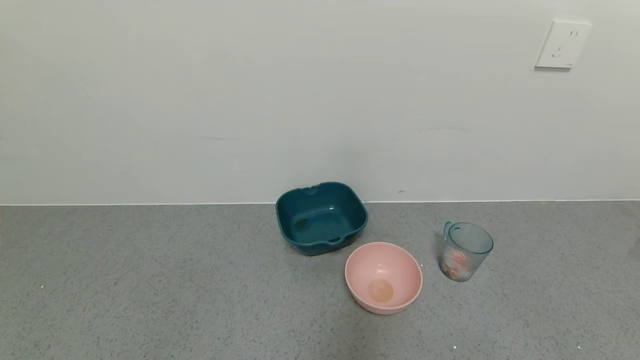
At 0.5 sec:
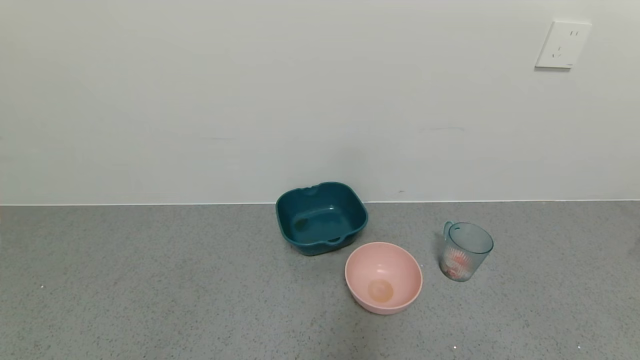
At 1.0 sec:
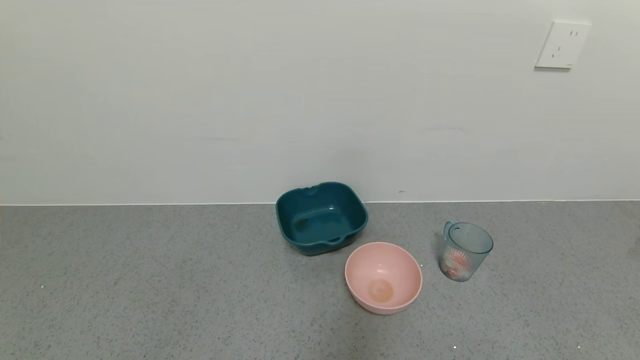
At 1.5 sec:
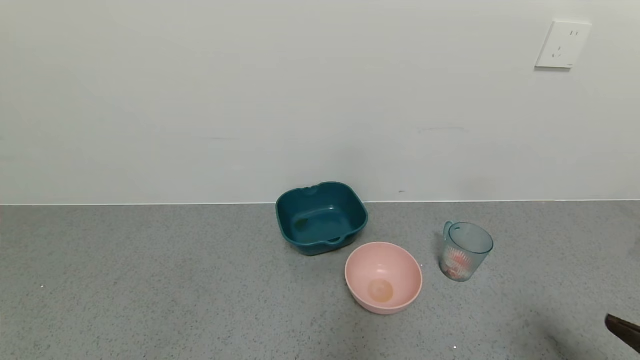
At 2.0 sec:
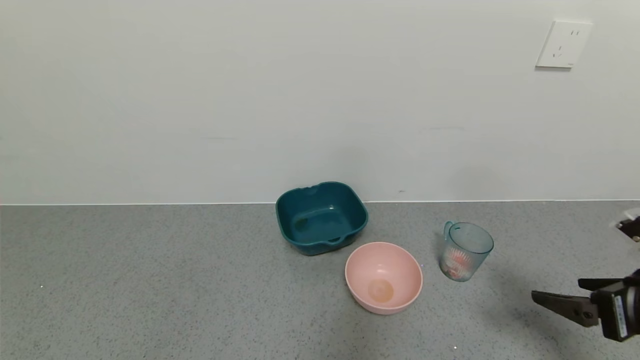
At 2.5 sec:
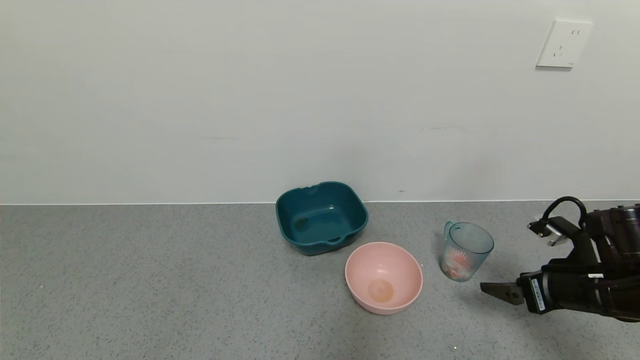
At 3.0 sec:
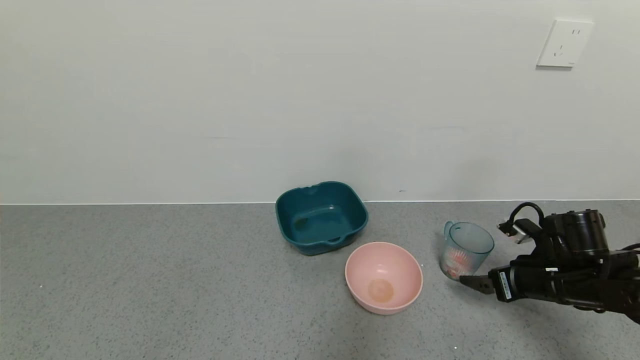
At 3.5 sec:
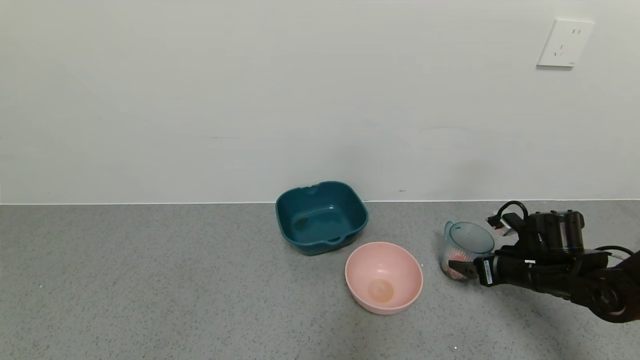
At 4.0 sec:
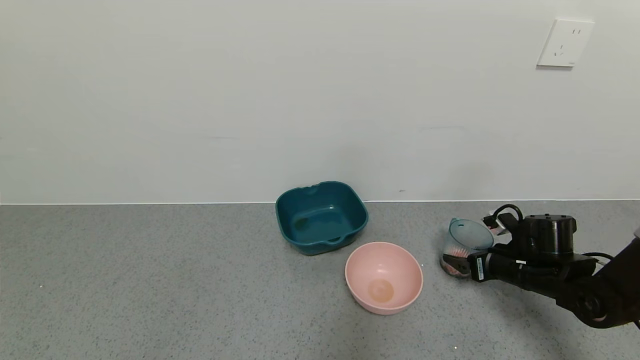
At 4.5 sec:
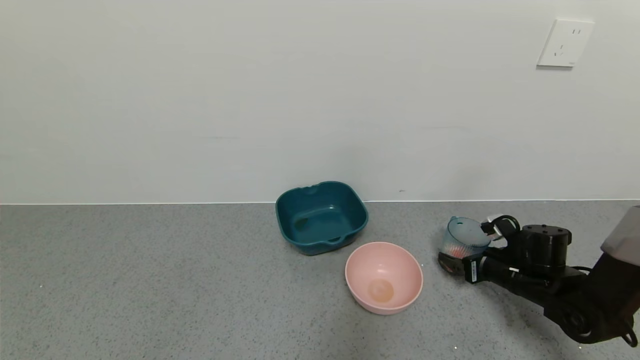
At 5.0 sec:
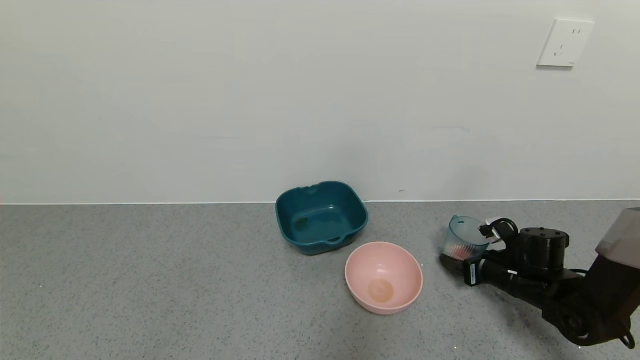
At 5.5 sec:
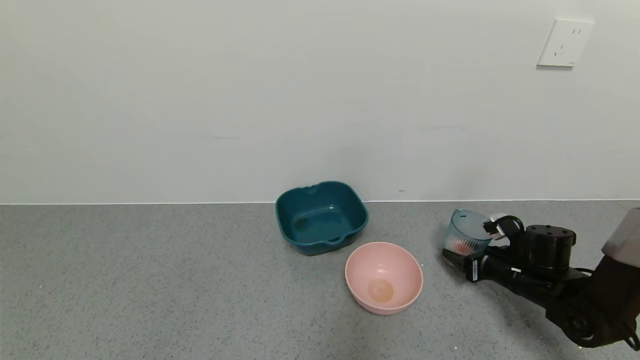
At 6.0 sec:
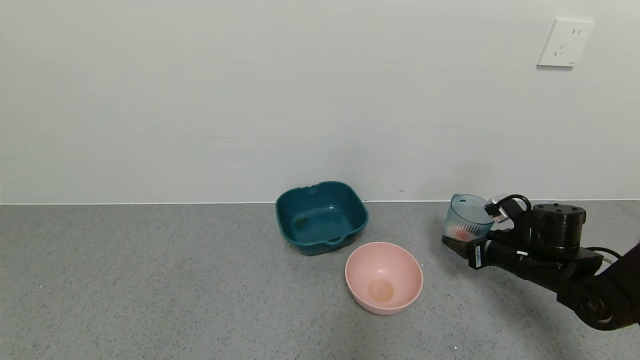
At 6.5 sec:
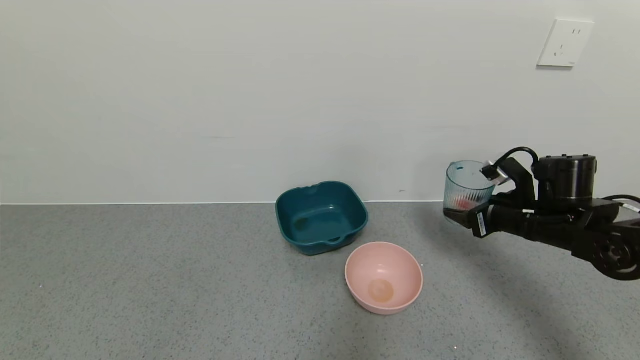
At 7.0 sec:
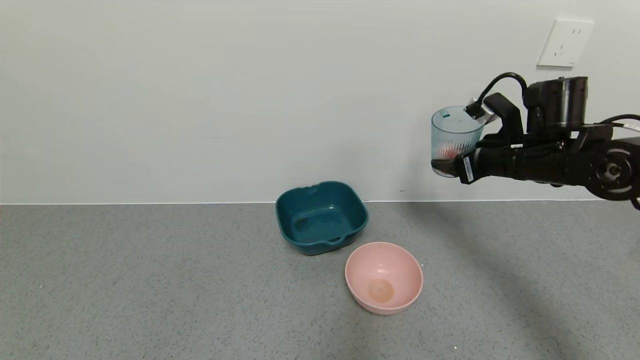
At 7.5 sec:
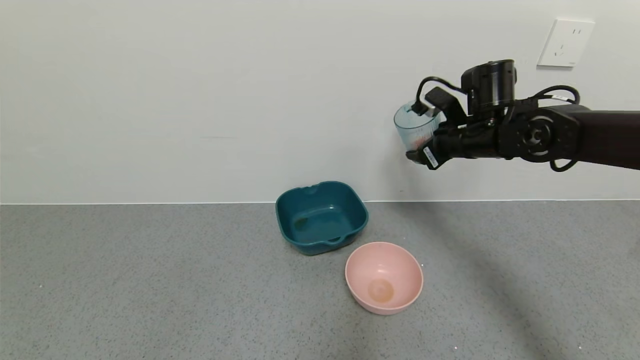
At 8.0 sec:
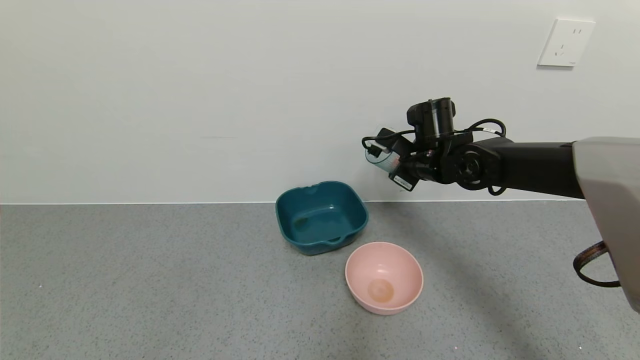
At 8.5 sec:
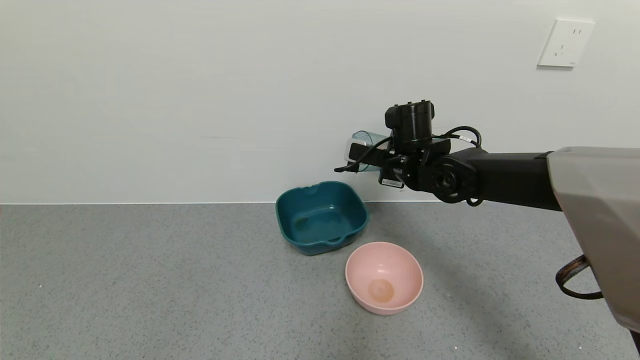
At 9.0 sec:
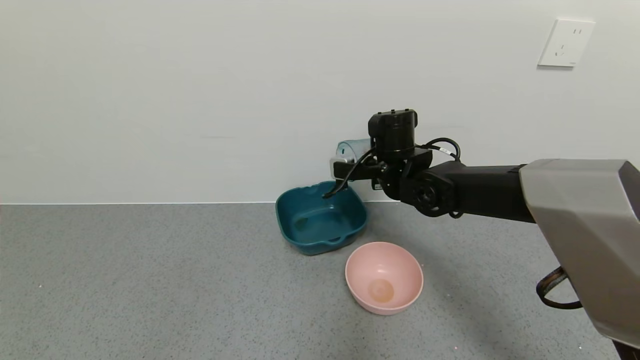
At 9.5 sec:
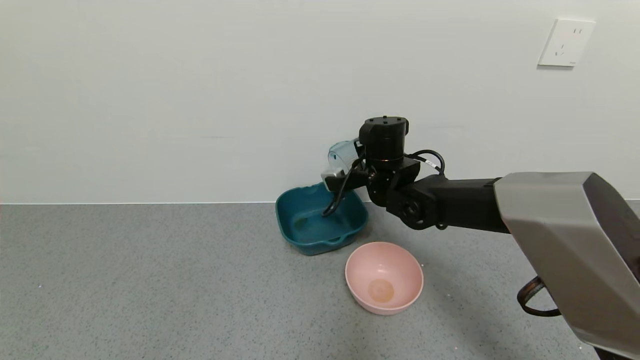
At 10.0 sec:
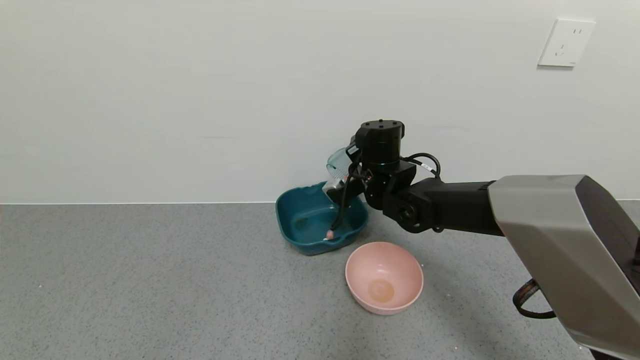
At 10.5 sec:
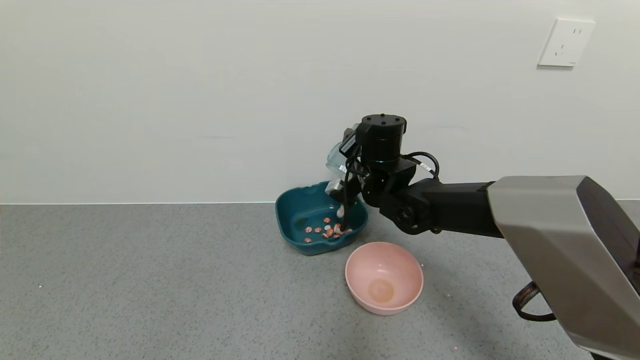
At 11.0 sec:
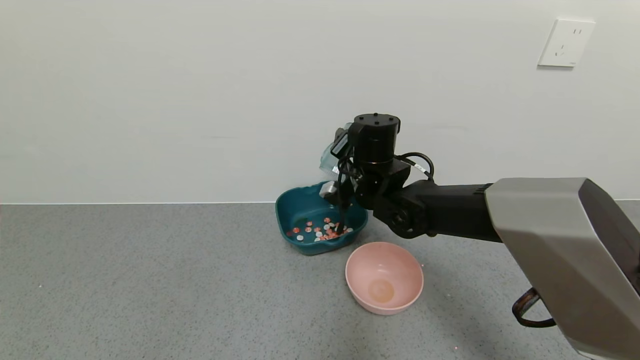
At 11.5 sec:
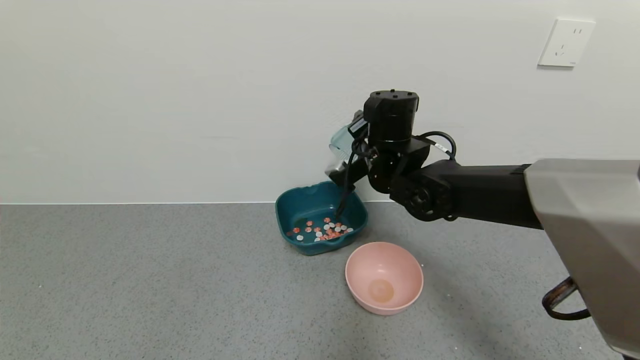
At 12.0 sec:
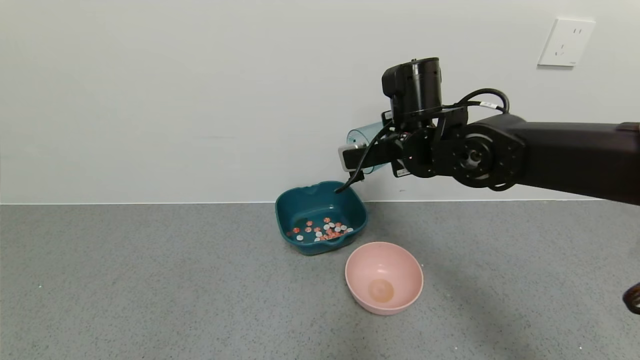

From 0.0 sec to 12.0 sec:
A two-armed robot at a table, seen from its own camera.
Task of the whole recording: use a gripper to pick up the cup and pour the solid into a bowl or tray.
Step, from 0.0 sec to 4.5 sec: Grasp the glass of shrimp with the right gripper.
Step, from 5.0 sec to 11.5 sec: Pour the shrimp beans into the green bowl with the right gripper.
From 0.0 sec to 2.0 sec: The right gripper travels forward and upward by some 20 cm.
From 2.0 sec to 4.0 sec: The right gripper heads forward and downward, covering approximately 20 cm.
From 4.0 sec to 6.0 sec: The right gripper closes its fingers.
From 6.0 sec to 8.0 sec: The right gripper shifts roughly 25 cm to the left, upward and forward.
From 8.0 sec to 10.0 sec: The right gripper goes roughly 10 cm to the left.
From 10.0 sec to 12.0 sec: The right gripper goes some 10 cm upward and backward.

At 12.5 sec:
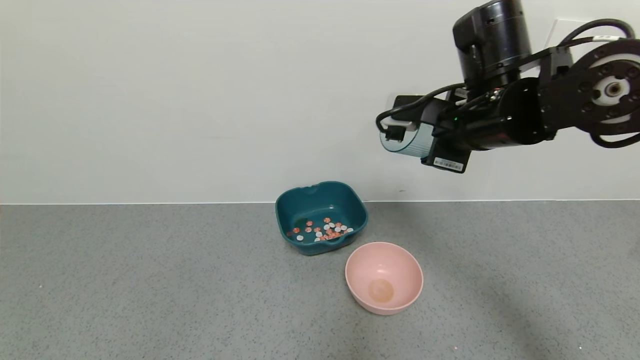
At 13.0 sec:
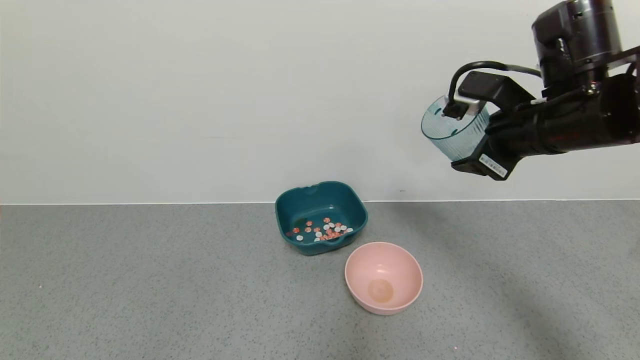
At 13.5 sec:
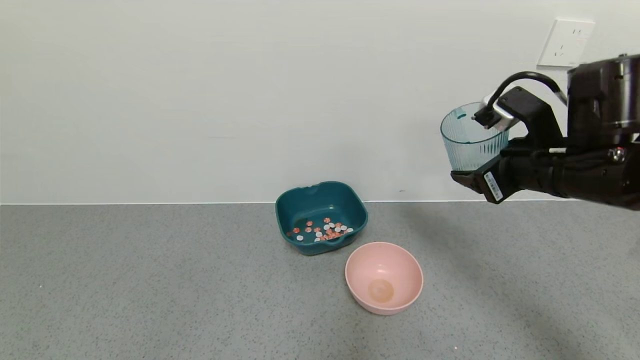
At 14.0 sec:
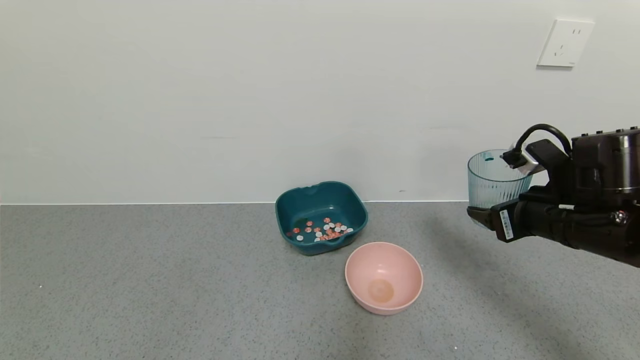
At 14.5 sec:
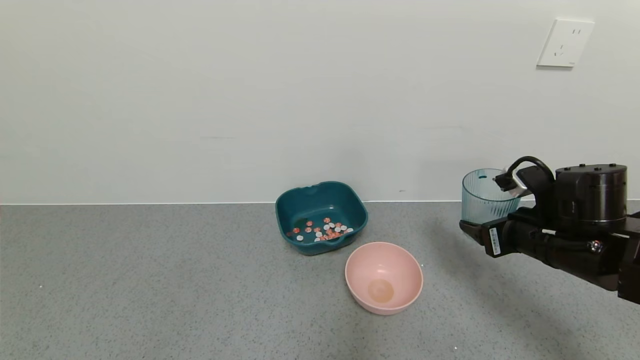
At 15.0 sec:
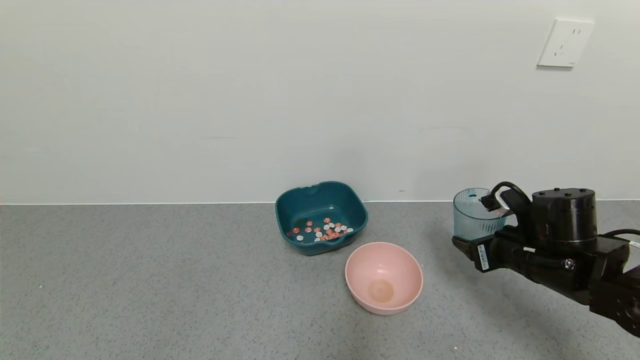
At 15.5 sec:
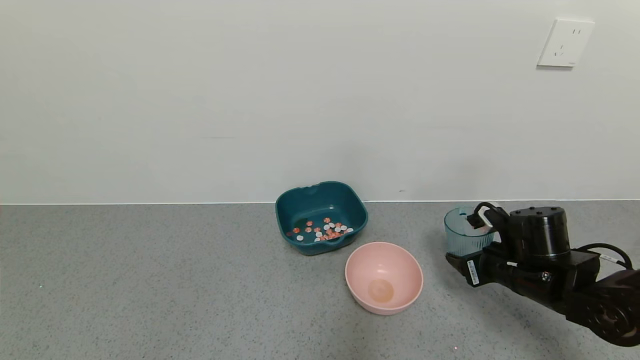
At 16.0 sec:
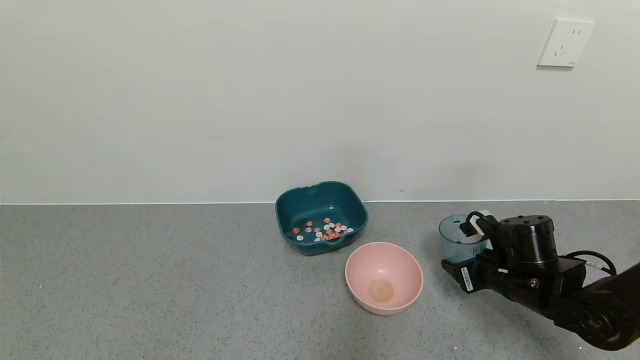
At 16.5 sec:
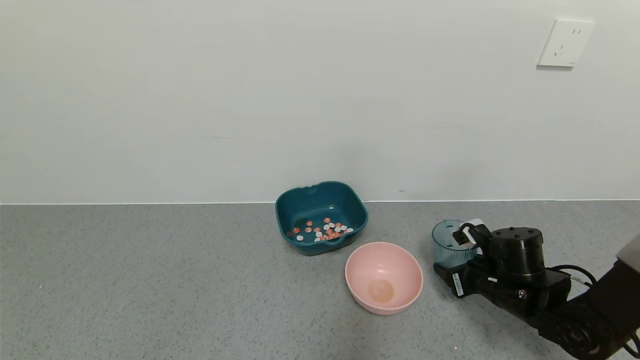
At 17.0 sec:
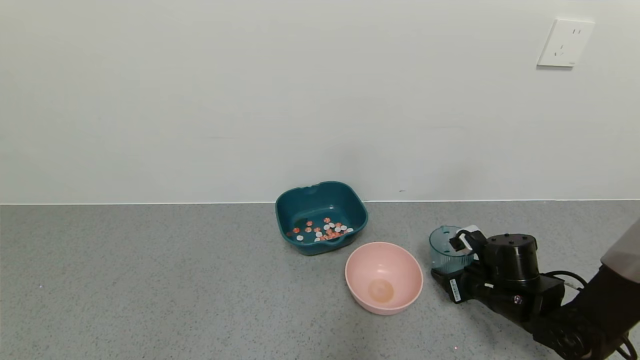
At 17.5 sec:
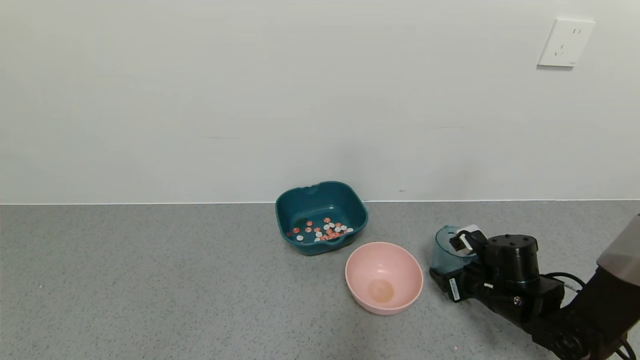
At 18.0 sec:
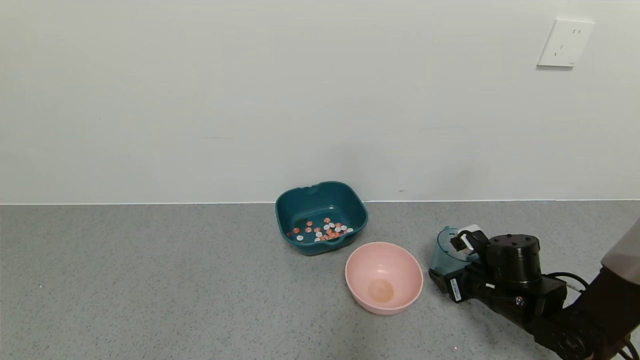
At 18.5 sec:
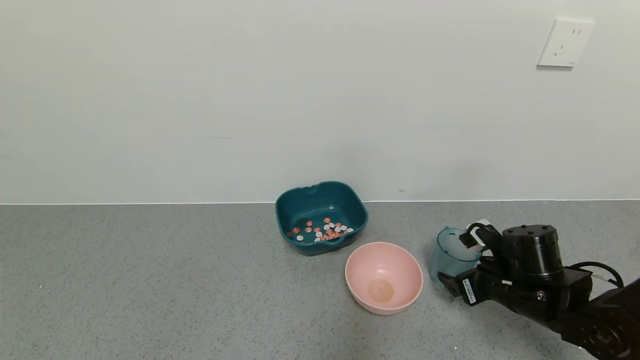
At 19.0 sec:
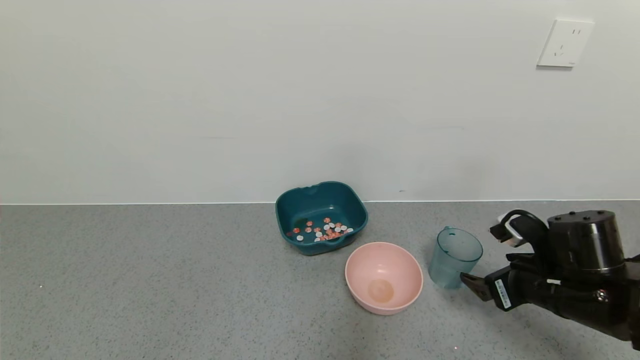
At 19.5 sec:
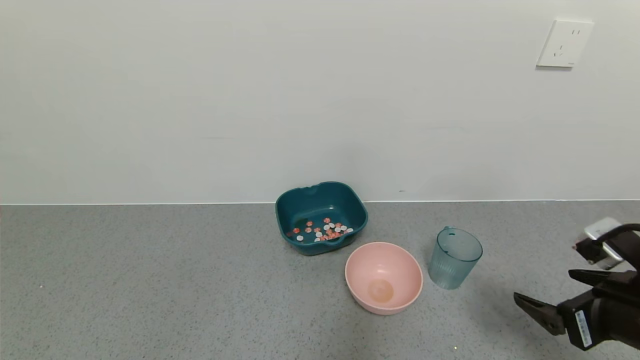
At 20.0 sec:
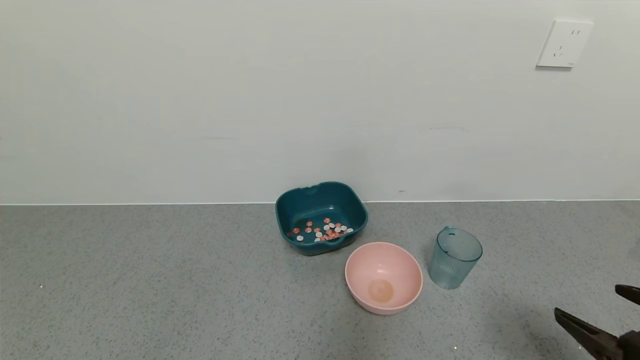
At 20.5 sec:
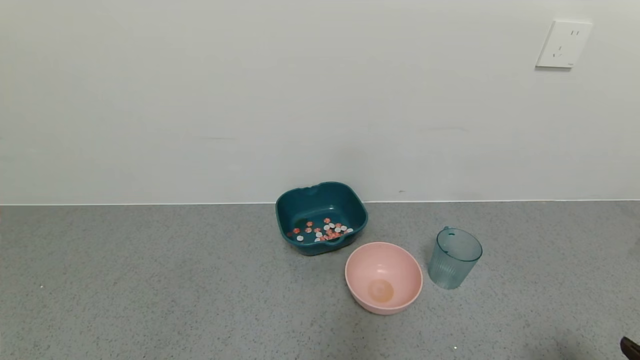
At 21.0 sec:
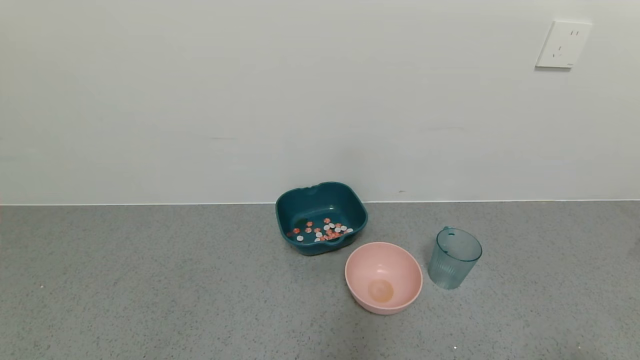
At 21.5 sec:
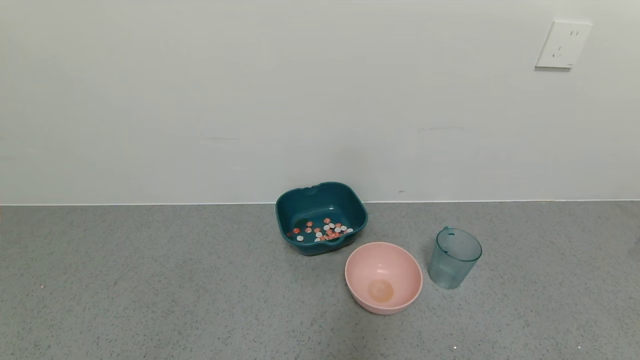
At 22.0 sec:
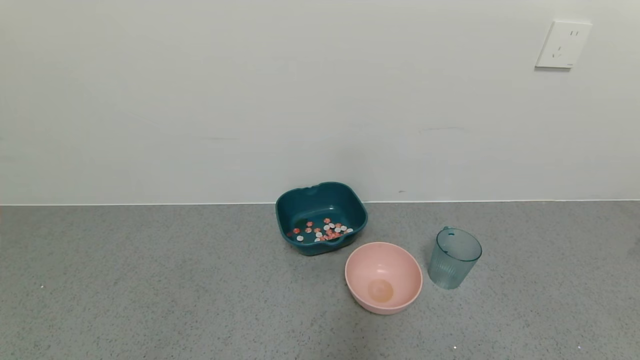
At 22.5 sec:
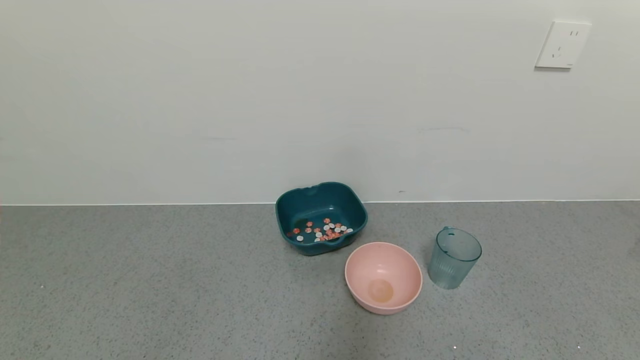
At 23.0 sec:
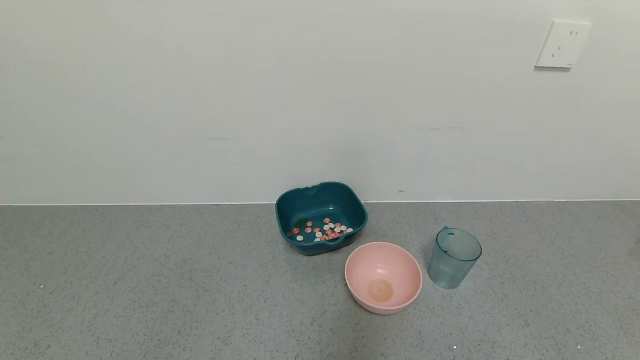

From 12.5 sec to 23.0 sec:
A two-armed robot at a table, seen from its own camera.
Task of the whole recording: use a gripper to pick up the cup and pour the solid into a bowl or tray.
Step, from 12.5 sec to 18.5 sec: Place the glass cup with the right gripper.
From 12.5 sec to 14.5 sec: The right gripper moves downward and to the right, approximately 20 cm.
From 14.5 sec to 16.5 sec: The right gripper goes about 10 cm downward.
From 16.5 sec to 19.0 sec: The right gripper heads upward and backward, covering about 10 cm, and opens its fingers.
From 19.0 sec to 21.0 sec: The right gripper goes some 25 cm backward.
